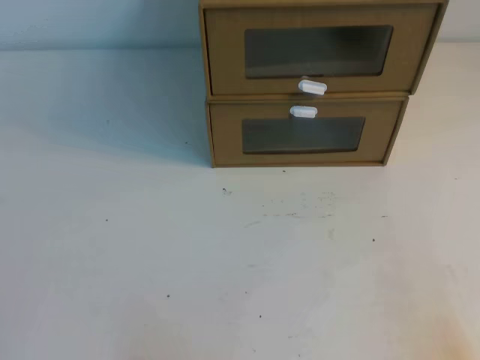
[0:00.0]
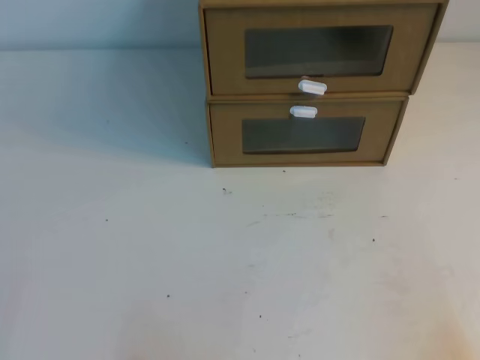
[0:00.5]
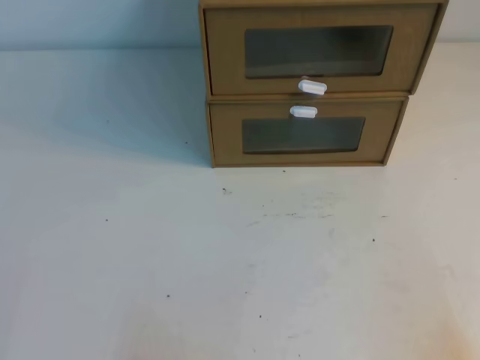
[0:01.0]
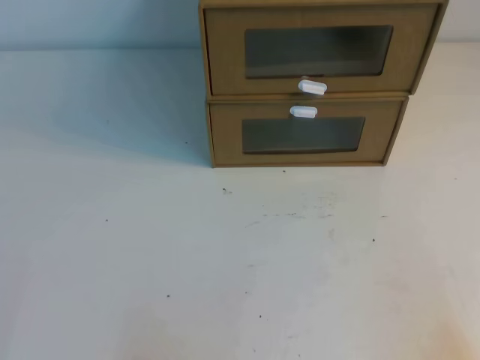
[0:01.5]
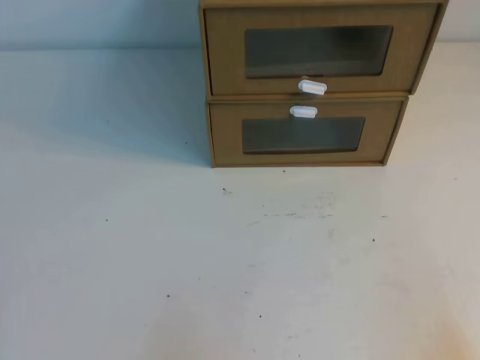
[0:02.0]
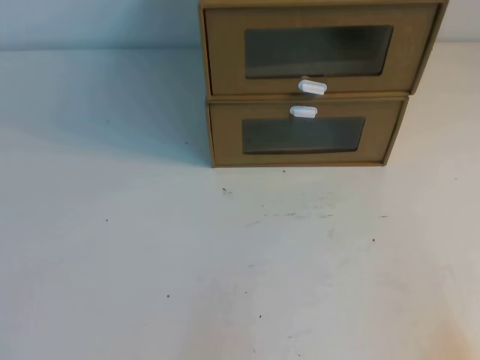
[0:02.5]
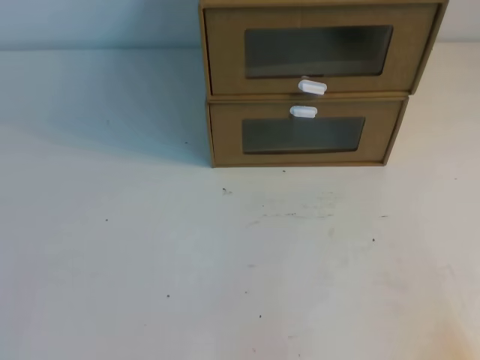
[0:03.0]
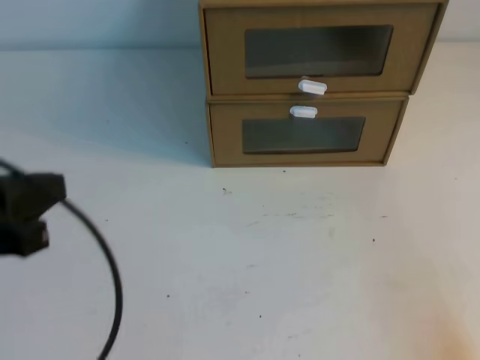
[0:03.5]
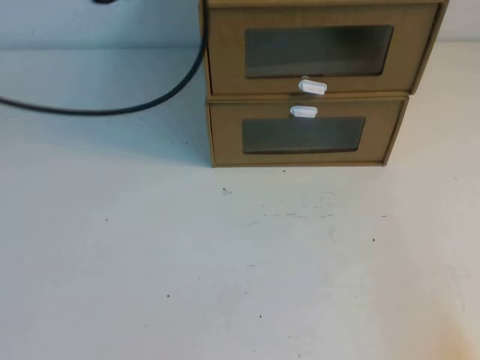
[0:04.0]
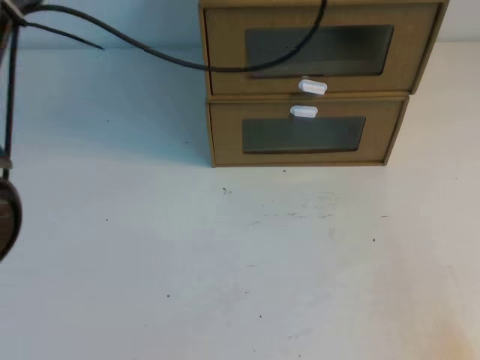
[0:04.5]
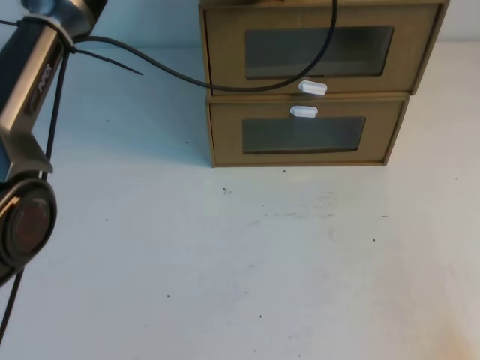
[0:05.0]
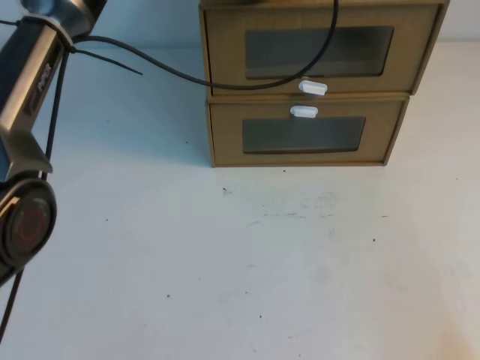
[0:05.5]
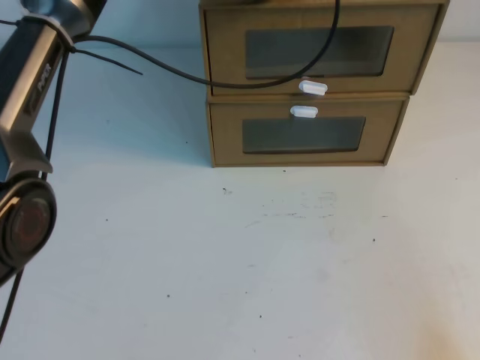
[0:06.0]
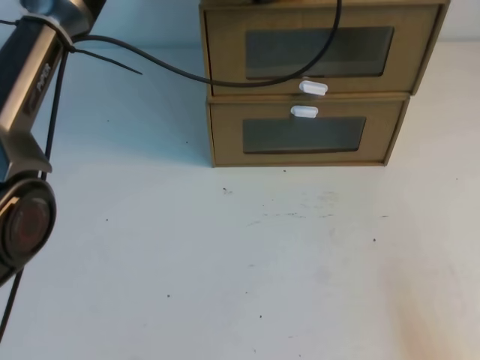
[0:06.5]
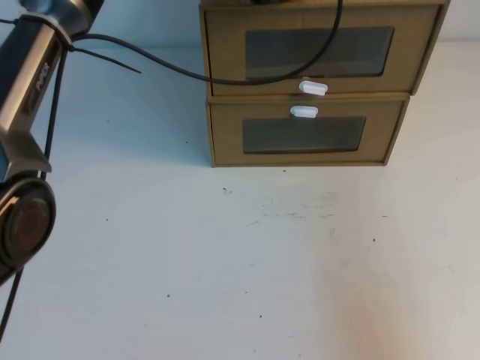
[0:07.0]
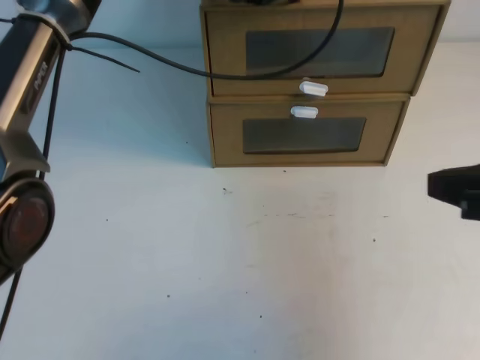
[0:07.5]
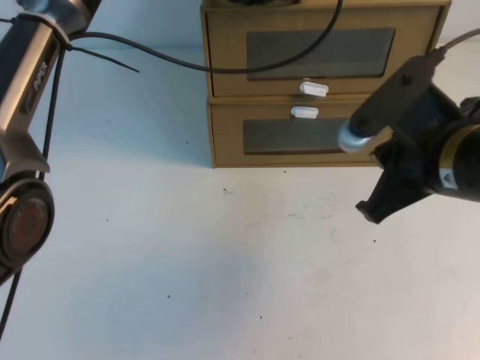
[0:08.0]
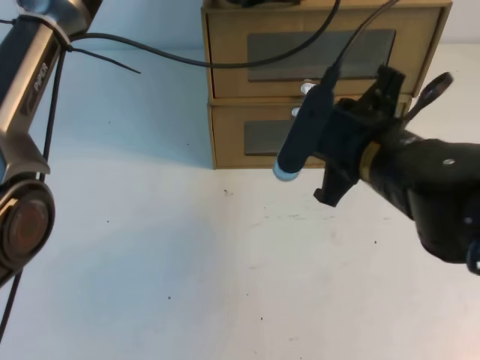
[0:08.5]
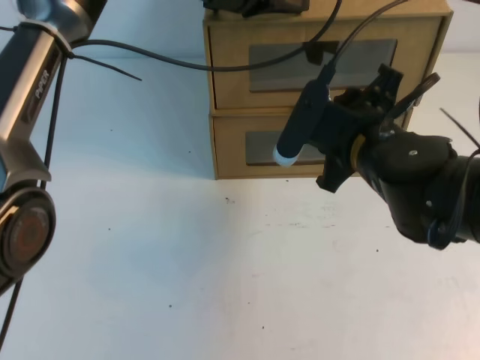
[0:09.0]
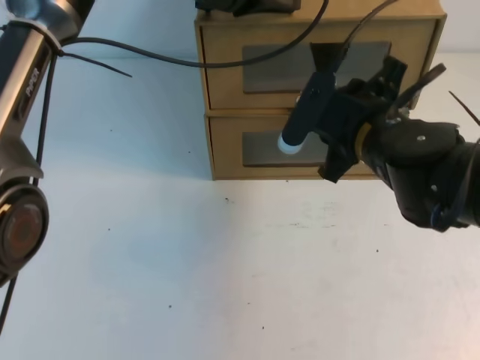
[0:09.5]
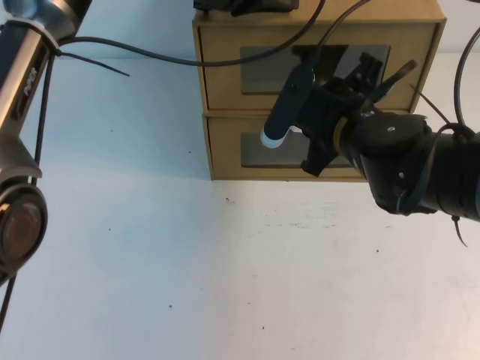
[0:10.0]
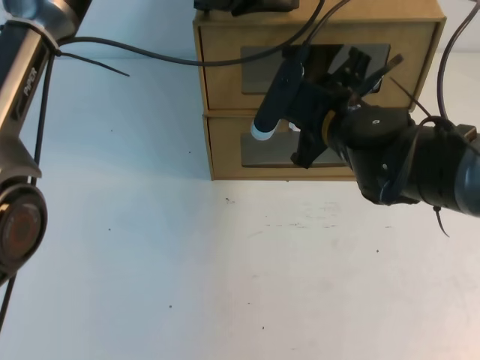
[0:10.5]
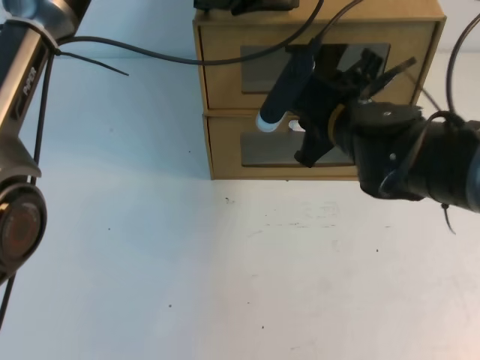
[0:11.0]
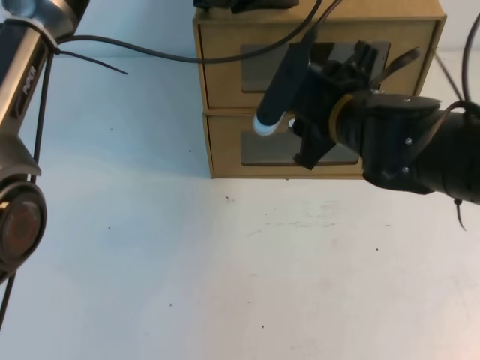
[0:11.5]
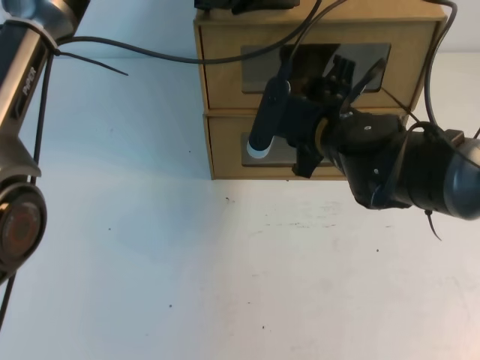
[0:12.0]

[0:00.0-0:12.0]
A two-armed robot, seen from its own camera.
Task of the whole recording: open the shoebox on the table.
0:02.0 to 0:04.0: The left gripper heads upward and forward, covering approximately 40 cm.
0:04.0 to 0:06.0: The left gripper travels to the right, forward and downward by some 20 cm.
0:06.0 to 0:08.0: The right gripper shifts about 25 cm forward, upward and to the left.
0:08.0 to 0:10.0: The right gripper heads forward and to the left, covering about 15 cm, and opens.
0:10.0 to 0:12.0: The grippers move only a little.

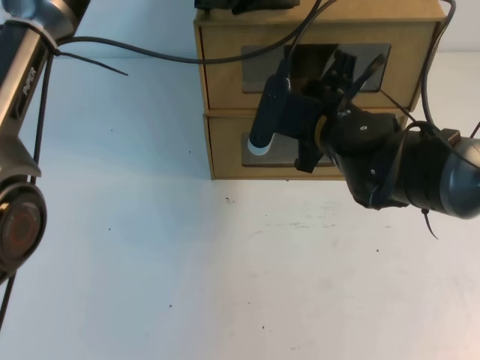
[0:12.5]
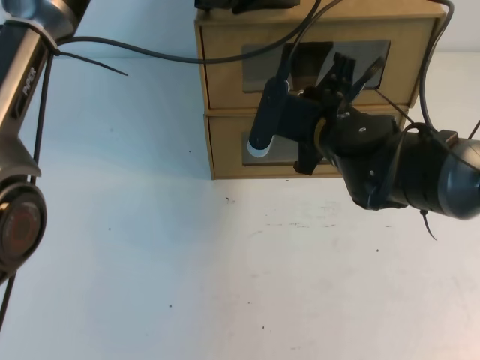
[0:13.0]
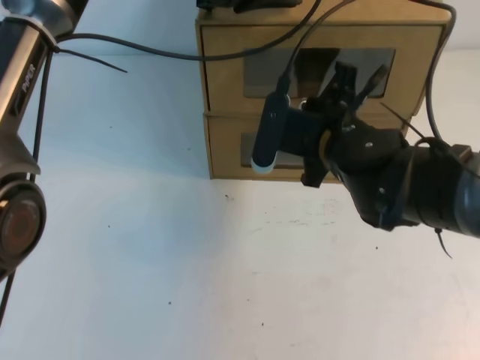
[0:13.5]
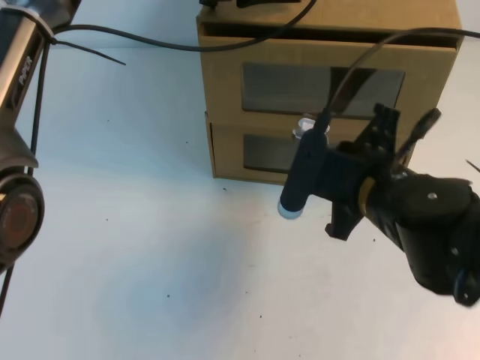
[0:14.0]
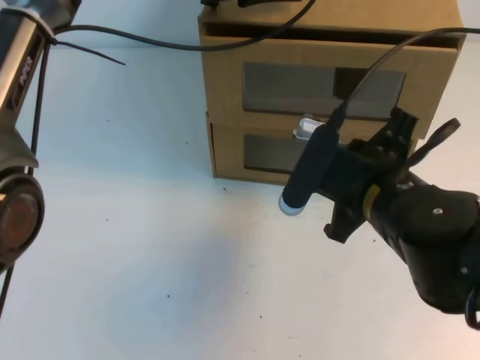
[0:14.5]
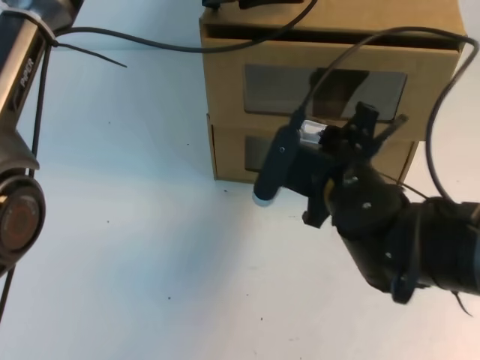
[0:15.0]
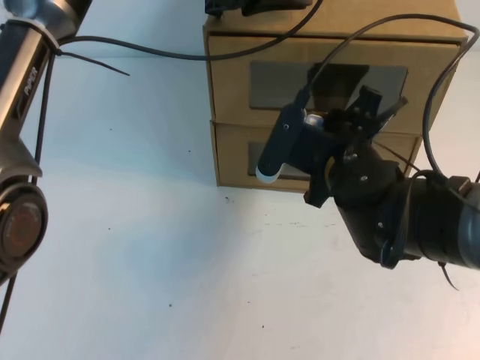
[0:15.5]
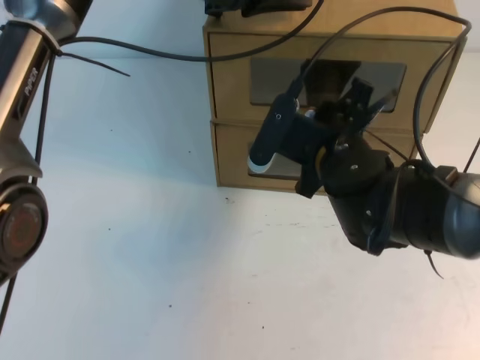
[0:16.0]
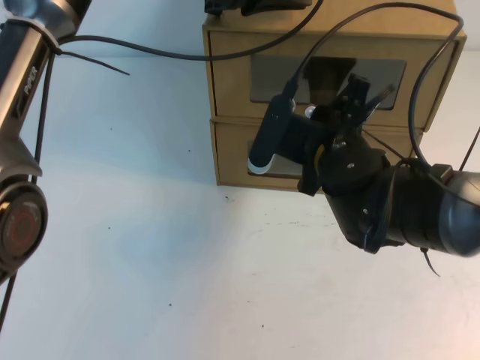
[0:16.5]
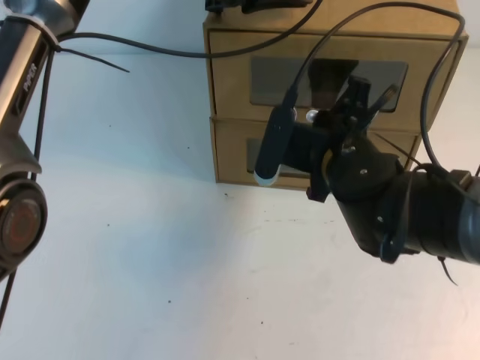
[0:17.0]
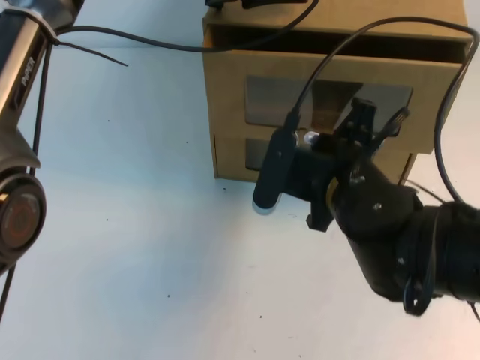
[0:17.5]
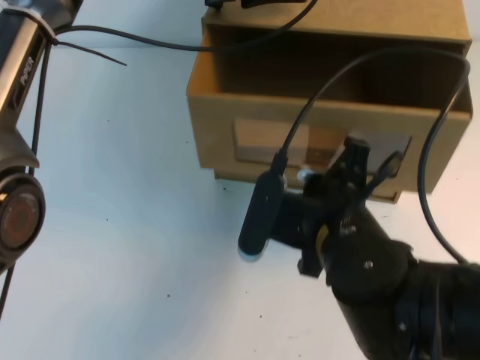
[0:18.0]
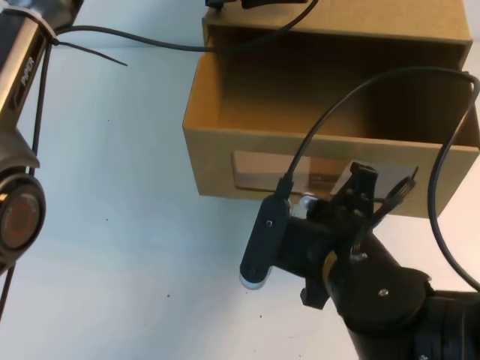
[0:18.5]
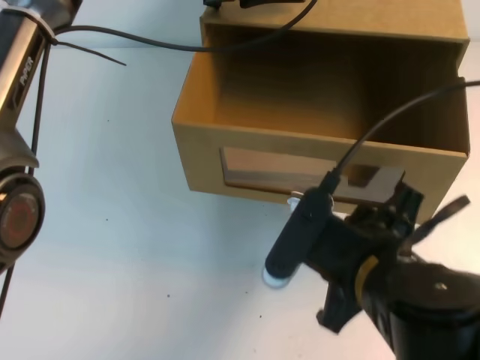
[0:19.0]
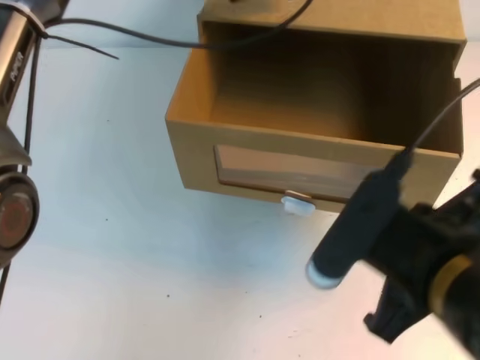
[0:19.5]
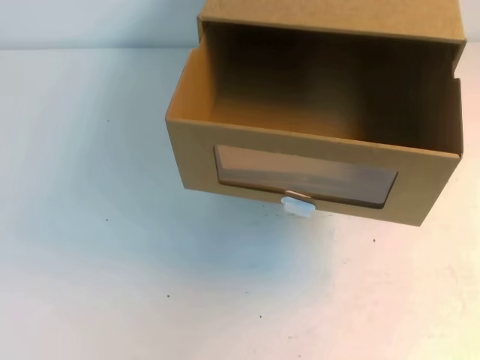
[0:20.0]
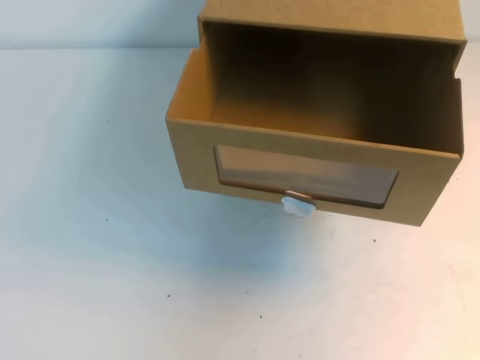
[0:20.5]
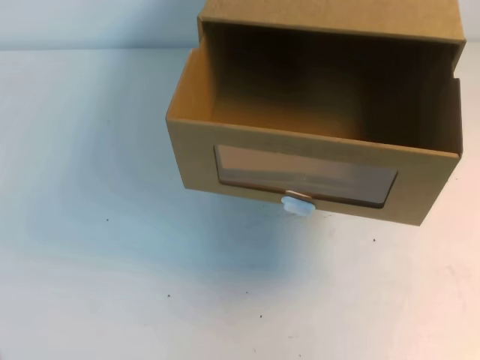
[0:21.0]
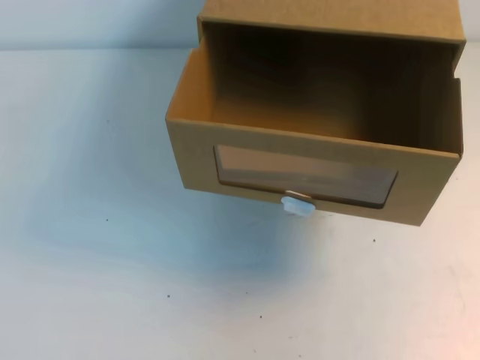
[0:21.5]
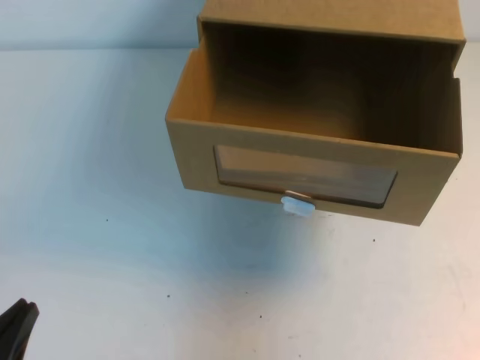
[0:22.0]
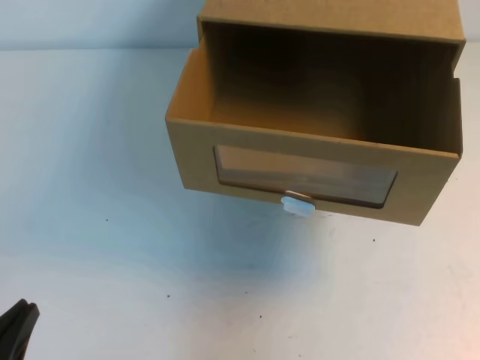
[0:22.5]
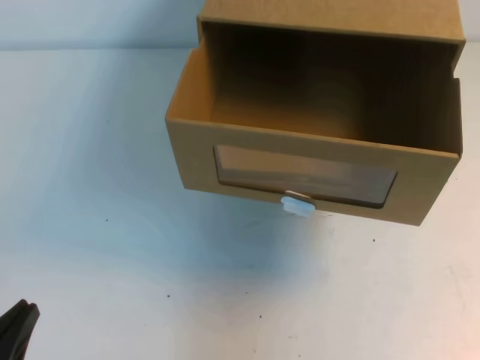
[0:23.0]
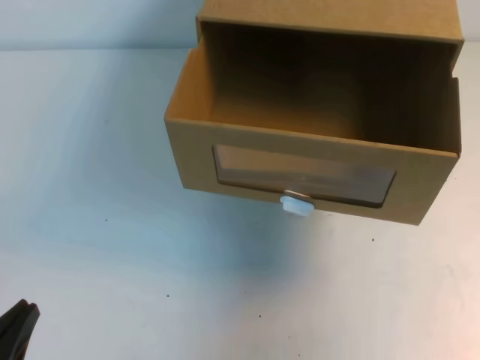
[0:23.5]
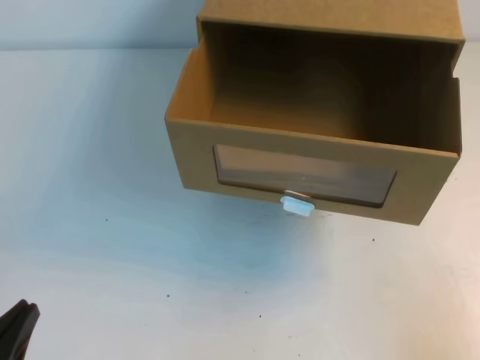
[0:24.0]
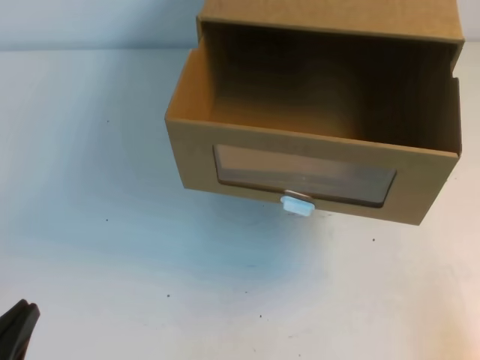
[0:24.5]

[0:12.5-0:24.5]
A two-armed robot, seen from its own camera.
Task of the whole recording: open the shoebox on the table.
0:12.5 to 0:14.5: The right gripper goes approximately 10 cm backward.
0:14.5 to 0:16.5: The right gripper goes approximately 10 cm forward, and opens, then closes once more.
0:16.5 to 0:18.5: The right gripper shifts about 15 cm backward.
0:18.5 to 0:20.5: The left gripper goes about 35 cm backward, upward and to the left; the right gripper moves upward, to the right and backward, roughly 30 cm, and opens, then closes again.
0:20.5 to 0:22.5: The left gripper travels downward by approximately 40 cm.
0:22.5 to 0:24.5: The right gripper shifts roughly 25 cm downward.

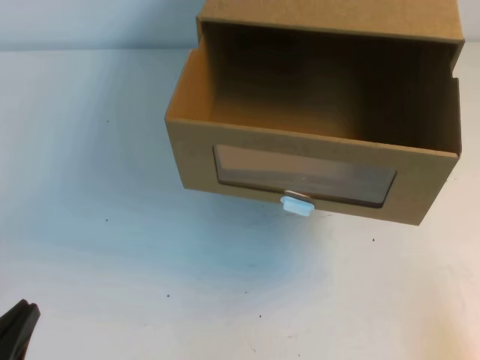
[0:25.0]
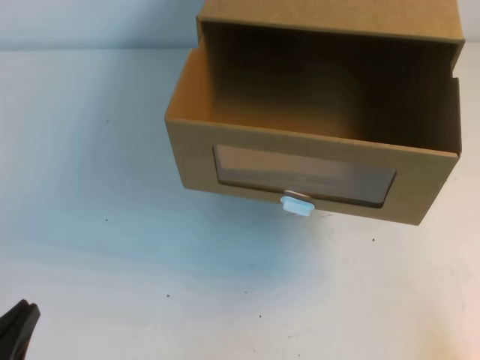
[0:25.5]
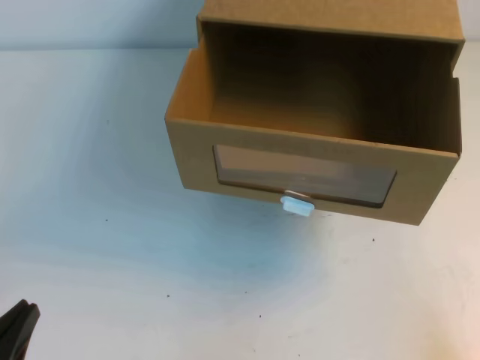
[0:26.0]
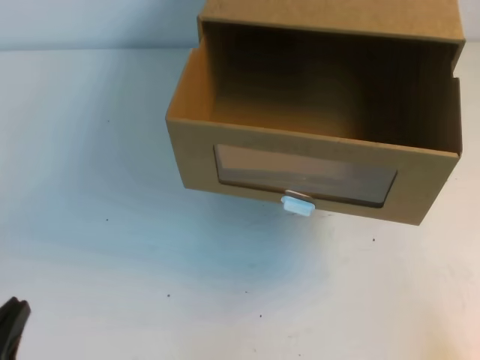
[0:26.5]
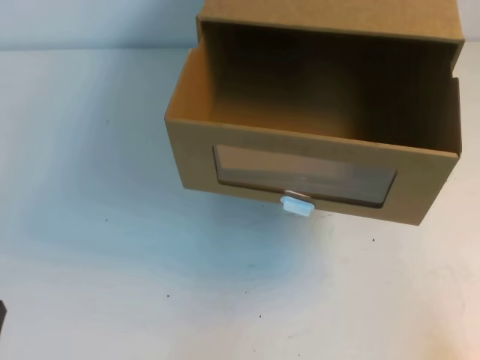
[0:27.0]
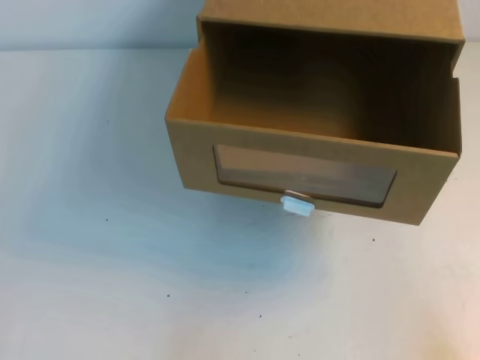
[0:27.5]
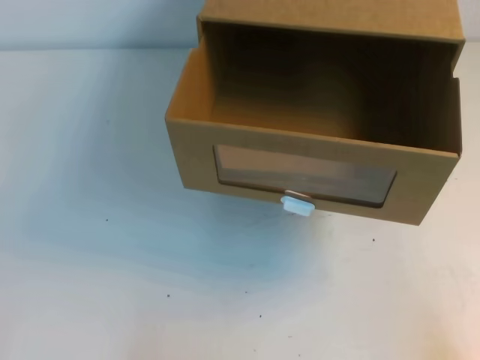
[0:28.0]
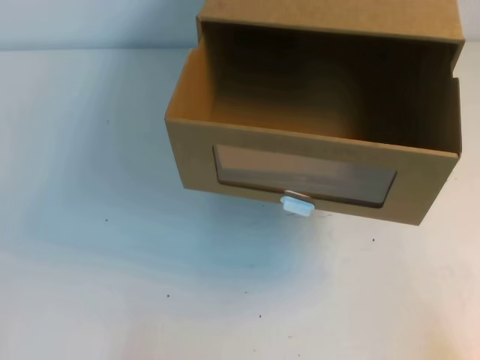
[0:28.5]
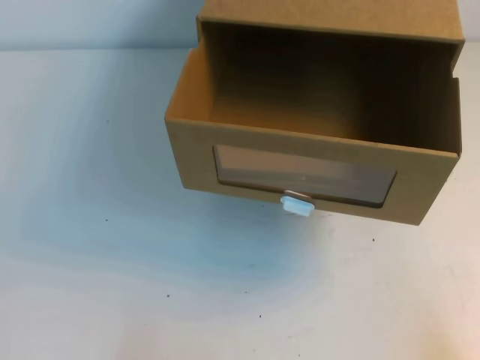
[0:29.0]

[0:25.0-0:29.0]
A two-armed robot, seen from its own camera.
Task of the whole recording: open the shoebox on the table.
0:25.0 to 0:27.0: The grippers move only a little.
